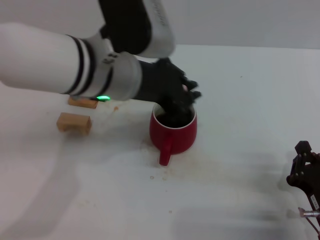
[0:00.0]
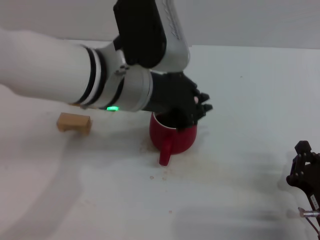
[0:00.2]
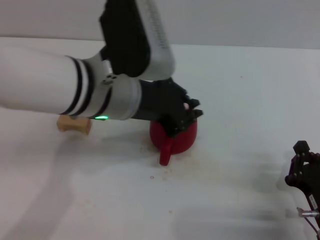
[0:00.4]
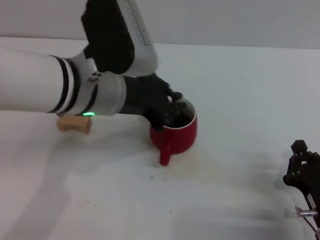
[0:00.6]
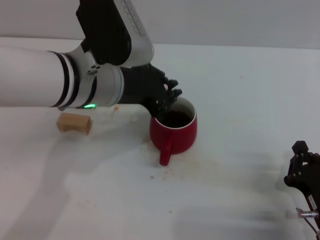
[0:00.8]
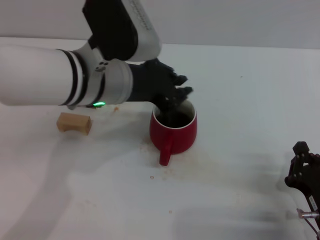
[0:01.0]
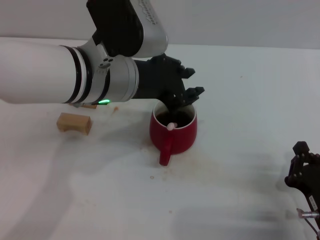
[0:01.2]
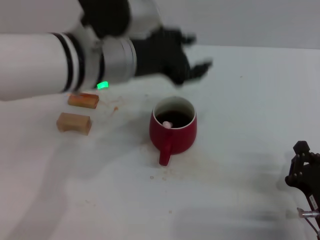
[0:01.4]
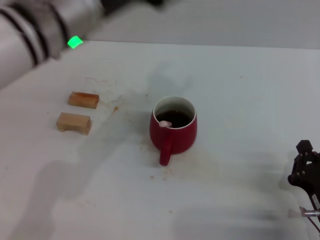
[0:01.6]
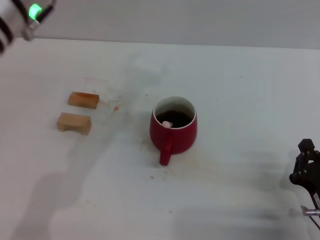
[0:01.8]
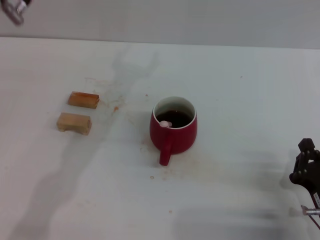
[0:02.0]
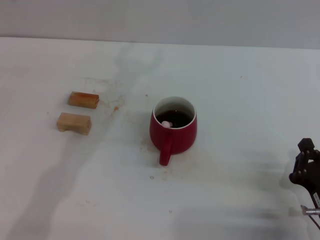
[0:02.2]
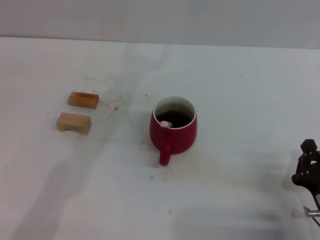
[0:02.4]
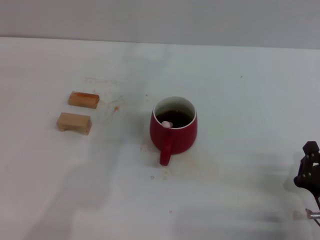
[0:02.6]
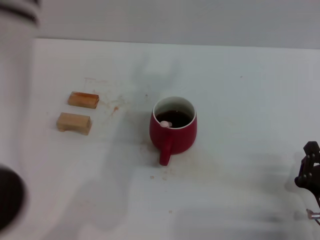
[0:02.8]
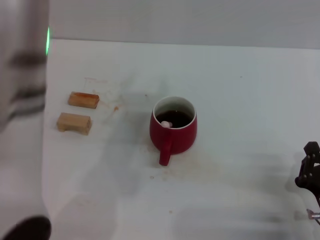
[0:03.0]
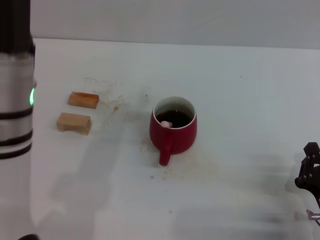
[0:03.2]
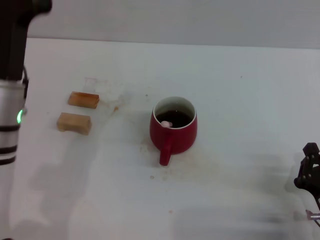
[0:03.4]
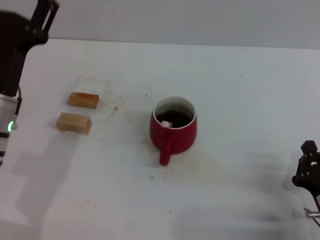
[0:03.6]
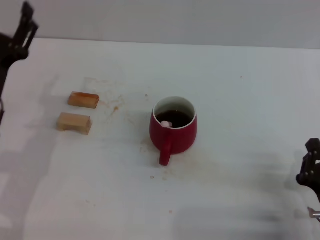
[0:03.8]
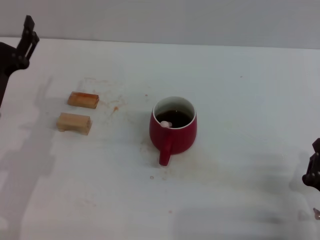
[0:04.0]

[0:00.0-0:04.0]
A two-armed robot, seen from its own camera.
Task of the whole recording: Move the red cup to the center, lift the pink spoon, stir it three times in the cup, and put the spoon into the cup.
0:00.0 to 0:01.4: The left gripper opens its fingers.
0:01.4 to 0:02.6: The left gripper heads upward, covering some 10 cm, and opens.
0:02.6 to 0:04.0: The left gripper shifts roughly 30 cm downward and to the left.

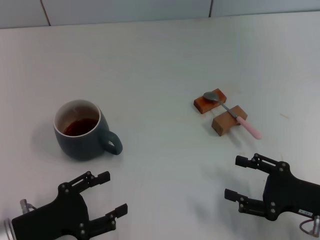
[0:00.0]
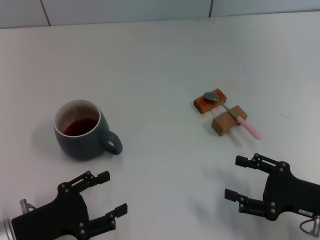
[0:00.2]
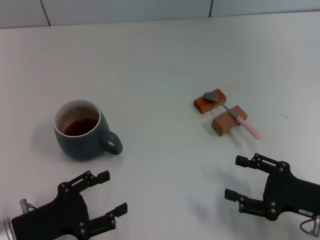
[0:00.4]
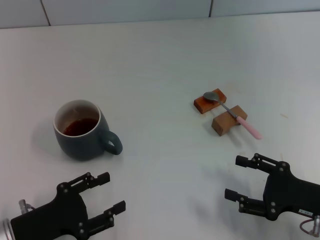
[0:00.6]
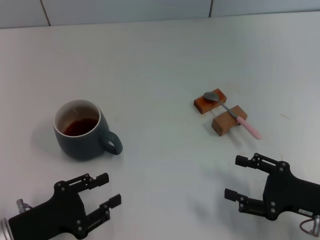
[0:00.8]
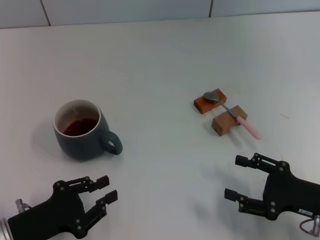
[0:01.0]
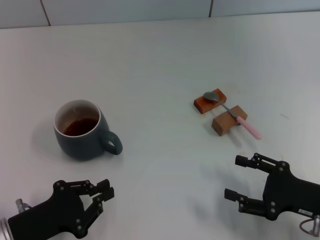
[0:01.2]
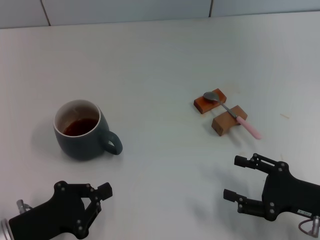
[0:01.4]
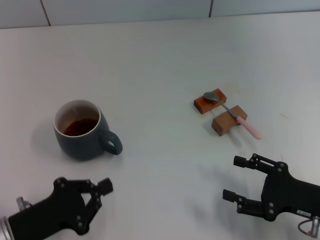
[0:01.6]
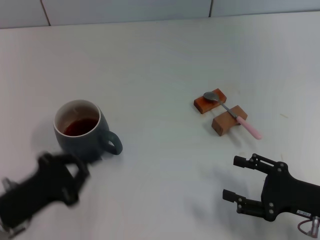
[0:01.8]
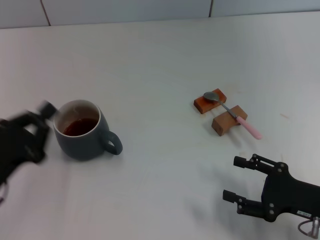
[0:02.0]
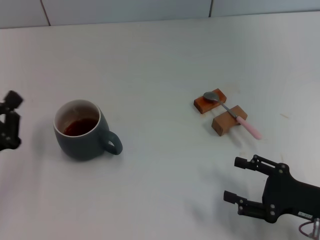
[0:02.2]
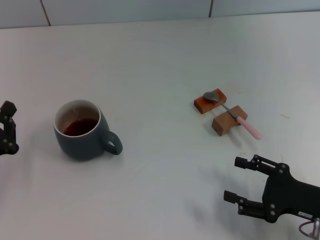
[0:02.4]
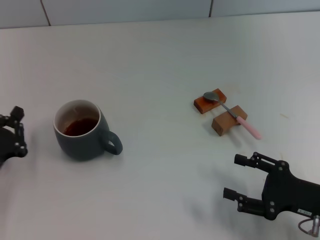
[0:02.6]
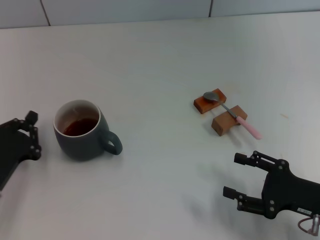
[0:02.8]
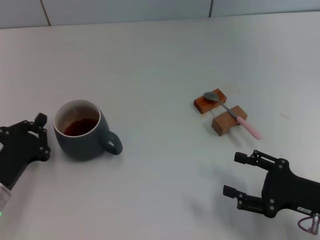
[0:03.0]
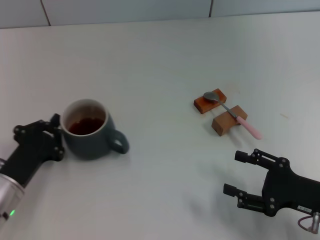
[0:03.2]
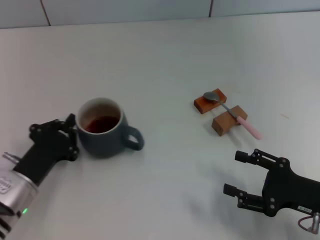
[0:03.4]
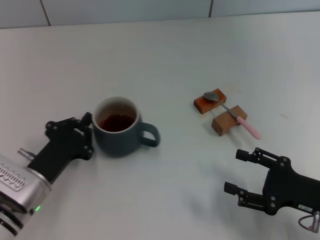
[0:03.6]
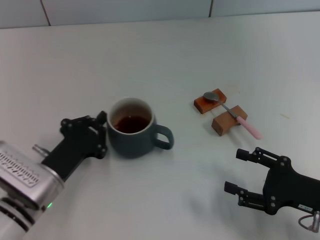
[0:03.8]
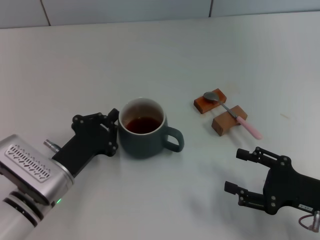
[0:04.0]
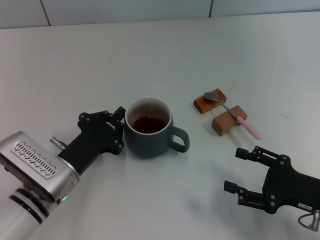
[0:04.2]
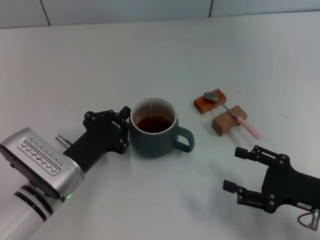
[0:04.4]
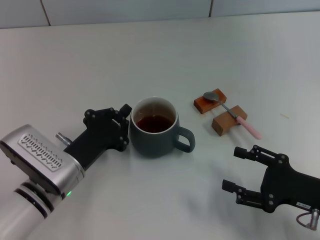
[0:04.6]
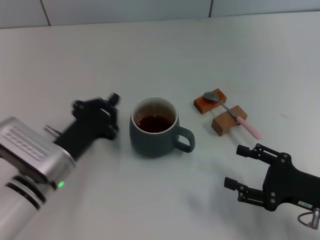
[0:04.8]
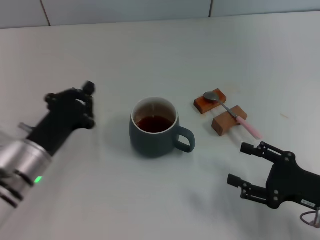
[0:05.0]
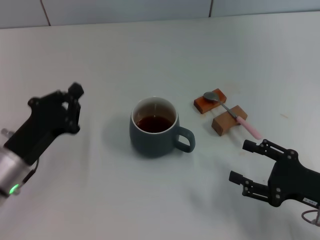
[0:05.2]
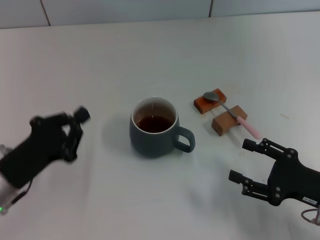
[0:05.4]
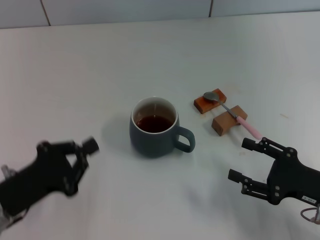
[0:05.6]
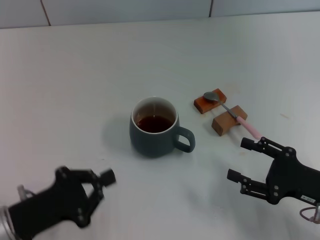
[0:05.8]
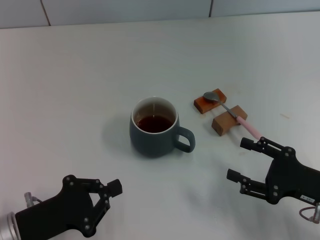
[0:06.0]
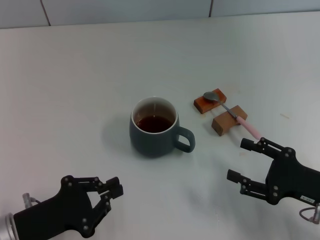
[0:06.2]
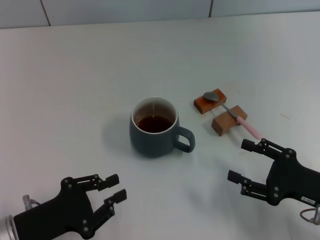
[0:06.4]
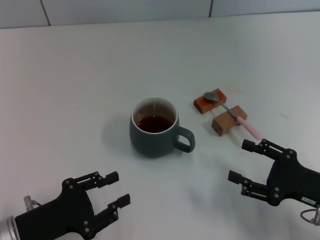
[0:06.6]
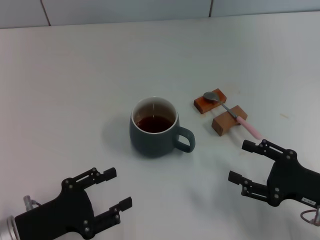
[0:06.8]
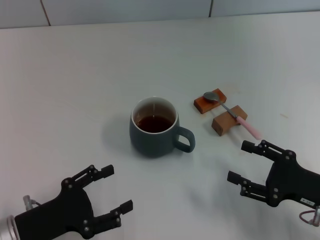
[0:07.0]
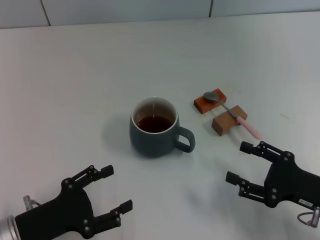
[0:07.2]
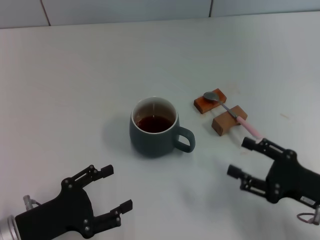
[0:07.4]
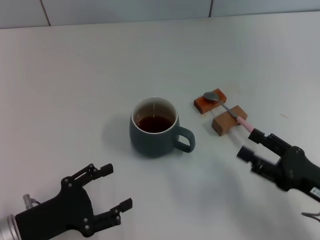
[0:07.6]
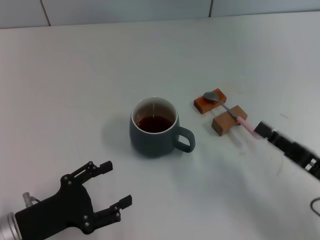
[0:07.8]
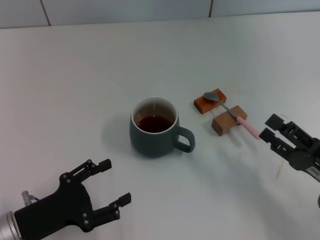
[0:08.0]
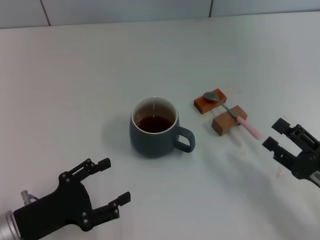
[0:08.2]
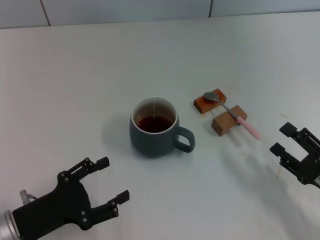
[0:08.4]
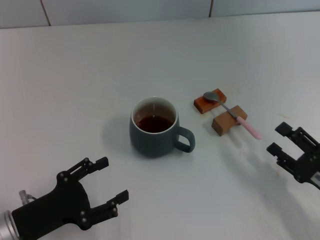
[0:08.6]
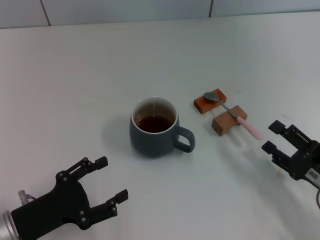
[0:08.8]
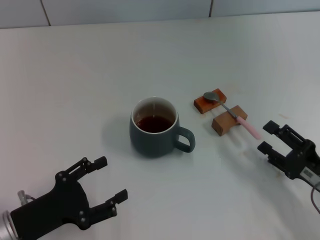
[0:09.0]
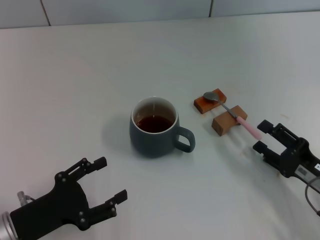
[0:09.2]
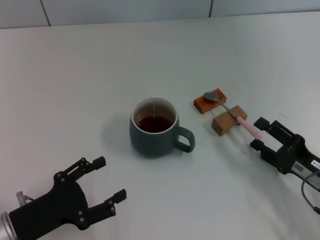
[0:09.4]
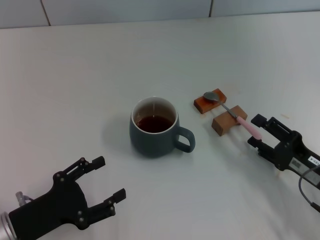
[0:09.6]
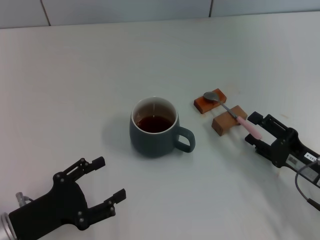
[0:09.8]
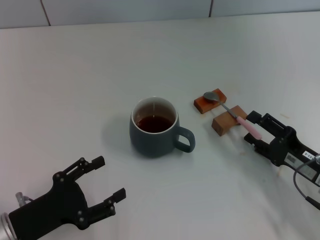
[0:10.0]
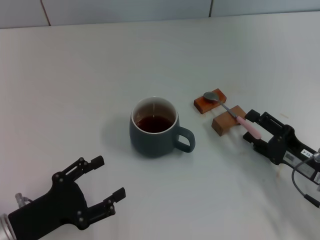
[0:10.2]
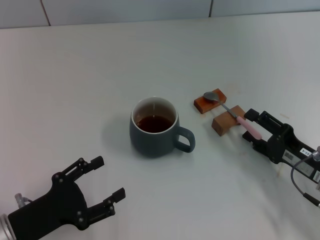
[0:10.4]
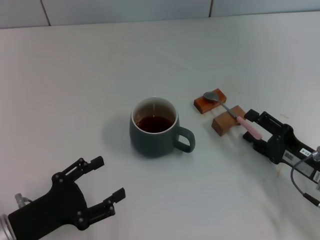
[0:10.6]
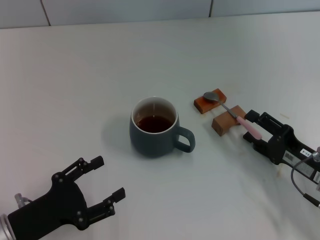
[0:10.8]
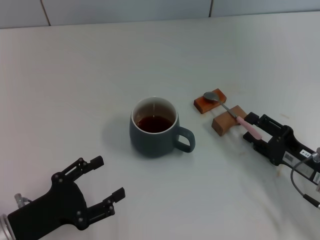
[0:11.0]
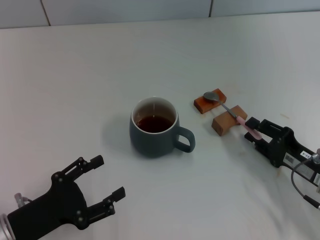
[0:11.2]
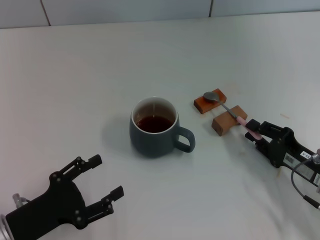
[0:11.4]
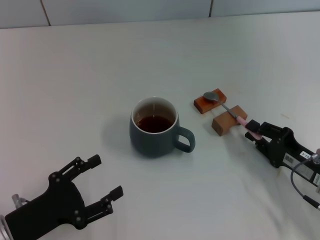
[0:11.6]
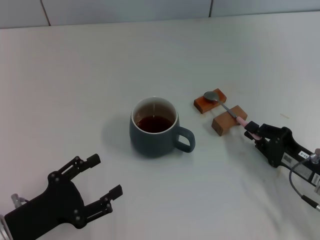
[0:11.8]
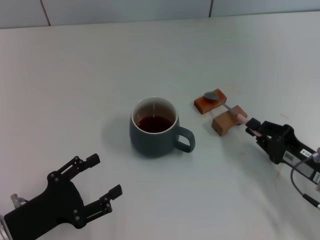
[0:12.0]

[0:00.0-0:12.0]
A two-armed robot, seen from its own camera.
Task of the whole recording: Move the grey cup to the center, lift the pink spoon, stir it three times in the cup, and put the spoon into the cup.
Step, 0:00.0 to 0:04.8: Move the cup with coffee to the center of view with the left gripper.
0:00.0 to 0:01.6: The left gripper closes its fingers.
0:01.6 to 0:03.0: The left gripper moves approximately 5 cm.
0:03.0 to 0:04.4: The left gripper heads to the right, covering roughly 10 cm.
0:04.4 to 0:06.0: The left gripper shifts roughly 10 cm to the left and backward.
0:06.0 to 0:07.6: The left gripper opens.
0:09.0 to 0:10.4: The grippers stay close to where they were, moving slightly.
0:10.4 to 0:12.0: The right gripper closes.

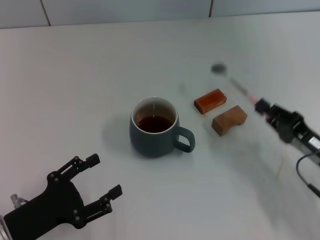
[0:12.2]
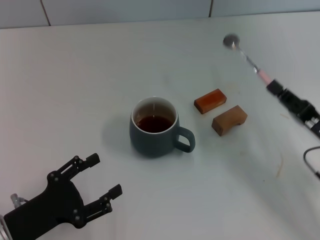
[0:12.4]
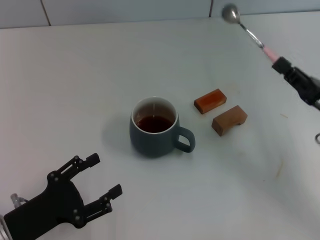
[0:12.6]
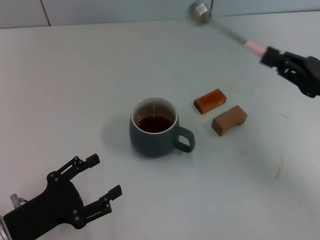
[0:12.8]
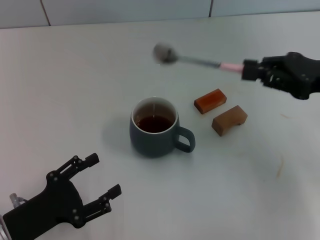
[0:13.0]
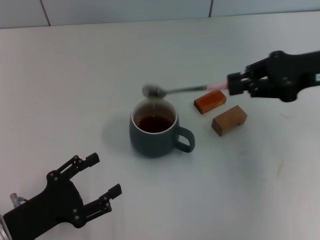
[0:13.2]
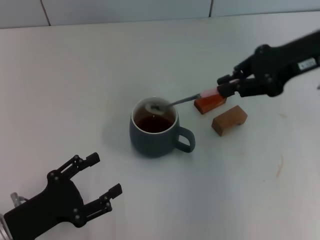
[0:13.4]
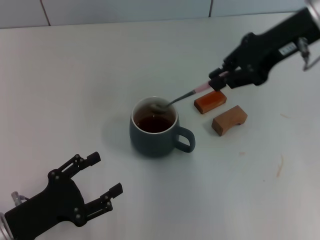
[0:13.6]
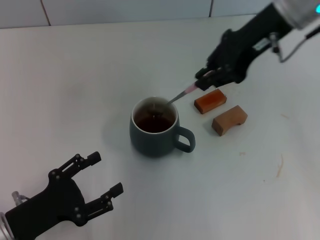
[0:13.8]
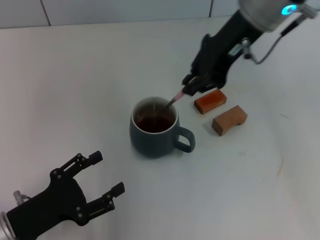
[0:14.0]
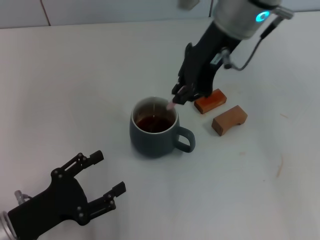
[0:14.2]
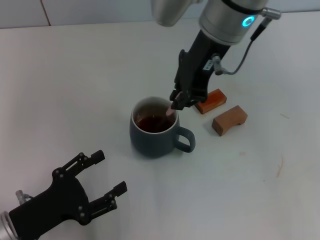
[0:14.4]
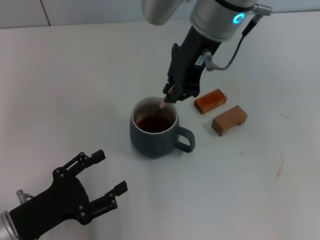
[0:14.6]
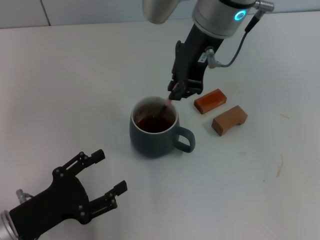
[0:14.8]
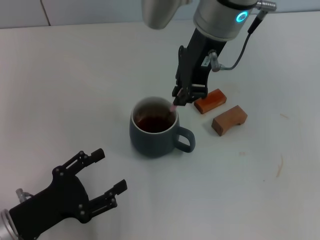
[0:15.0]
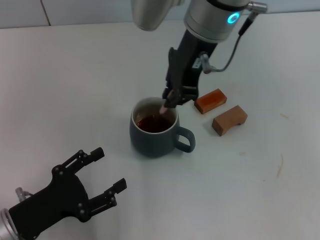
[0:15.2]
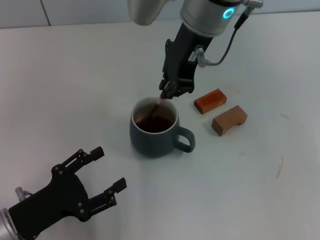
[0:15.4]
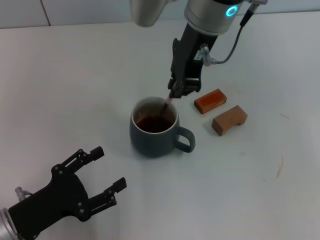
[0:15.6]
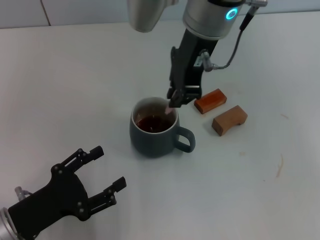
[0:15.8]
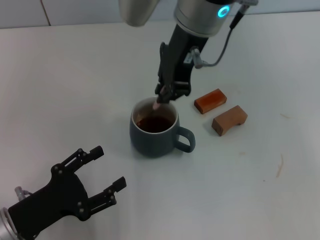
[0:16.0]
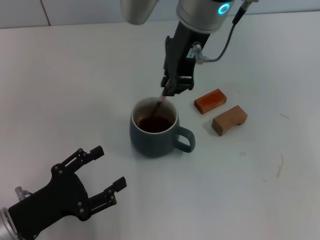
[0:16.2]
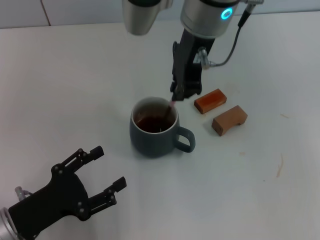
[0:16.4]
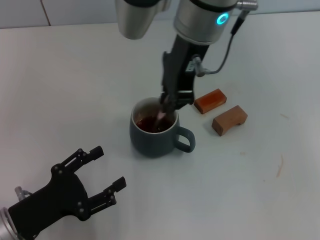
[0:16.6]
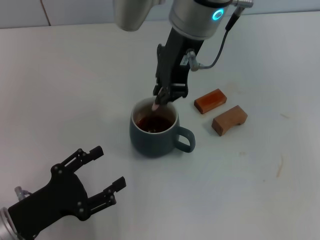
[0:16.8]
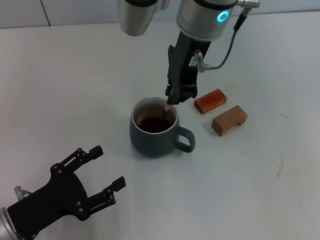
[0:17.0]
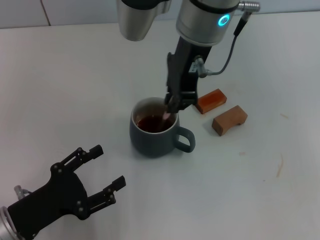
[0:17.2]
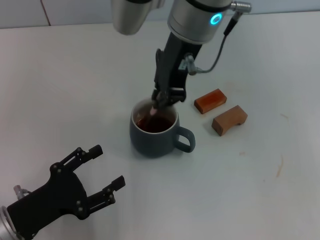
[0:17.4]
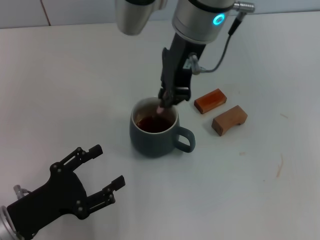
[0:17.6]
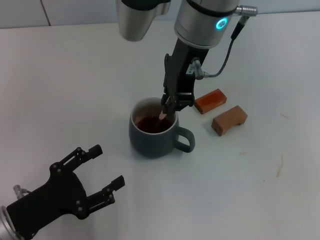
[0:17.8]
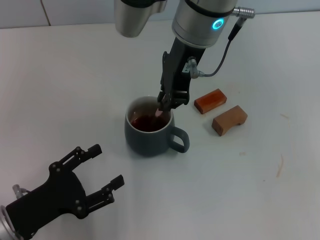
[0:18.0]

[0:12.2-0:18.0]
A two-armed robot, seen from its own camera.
Task of the whole recording: Move the grey cup to the center, lift the pink spoon, stir it three times in the cup, and put the spoon into the cup.
0:12.2 to 0:13.6: The right gripper is displaced upward and forward by roughly 30 cm.
0:13.6 to 0:15.0: The right gripper moves to the left, about 15 cm.
0:15.0 to 0:18.0: The grippers move only a little.
